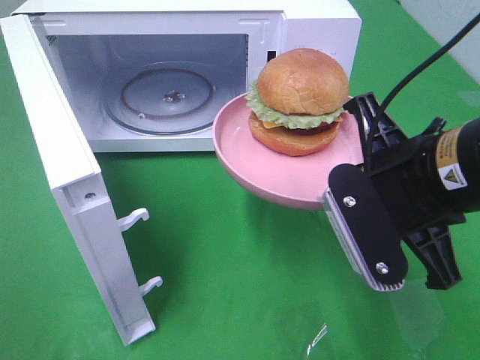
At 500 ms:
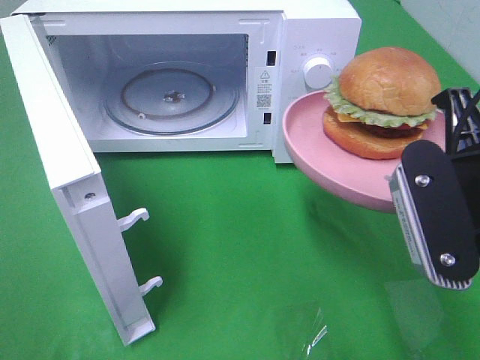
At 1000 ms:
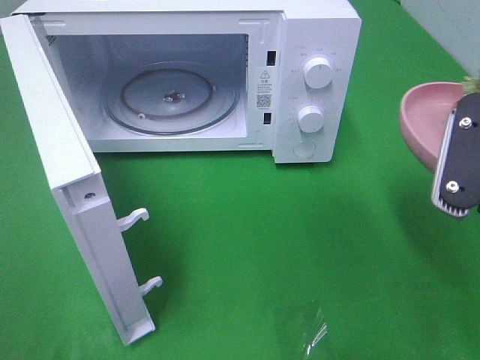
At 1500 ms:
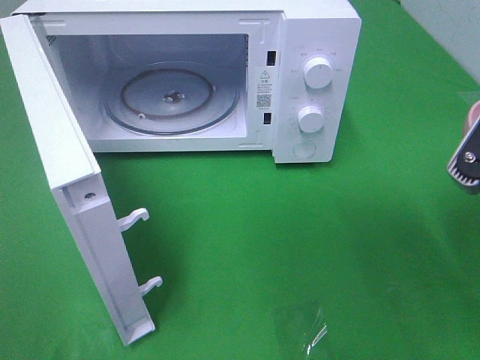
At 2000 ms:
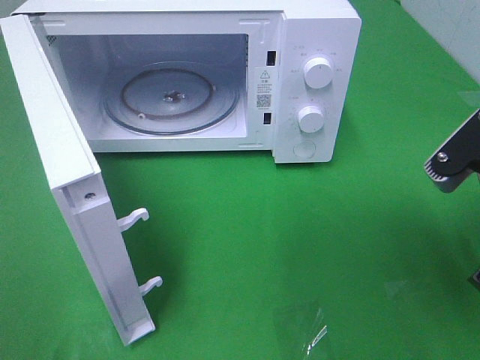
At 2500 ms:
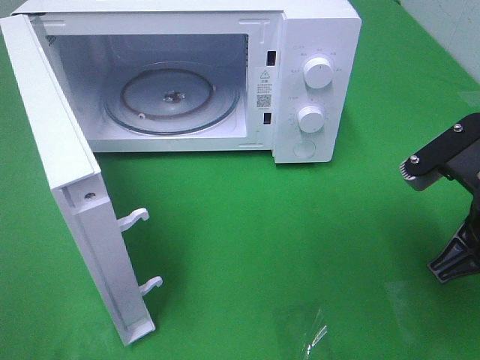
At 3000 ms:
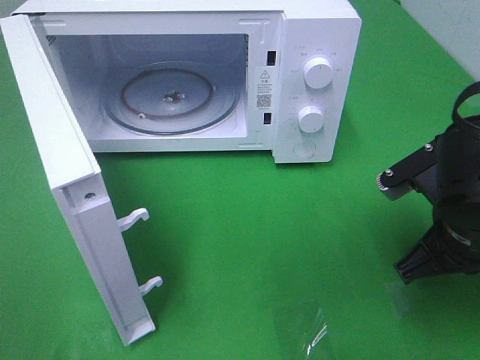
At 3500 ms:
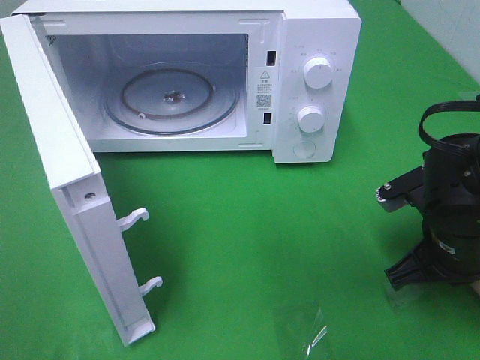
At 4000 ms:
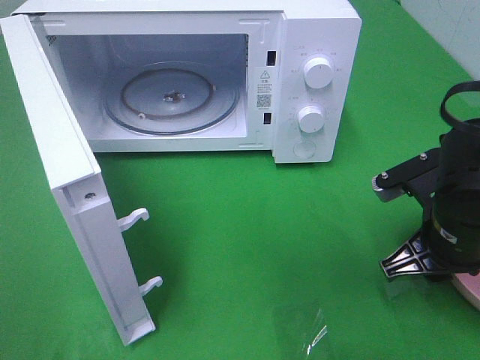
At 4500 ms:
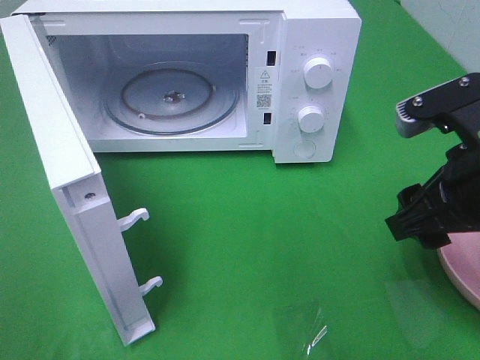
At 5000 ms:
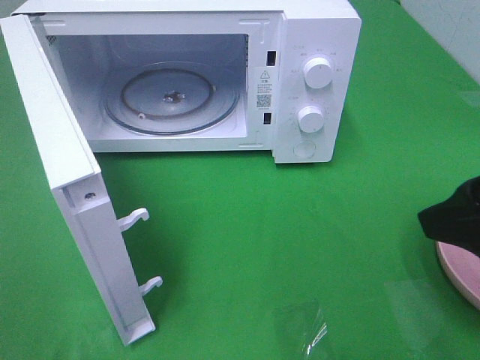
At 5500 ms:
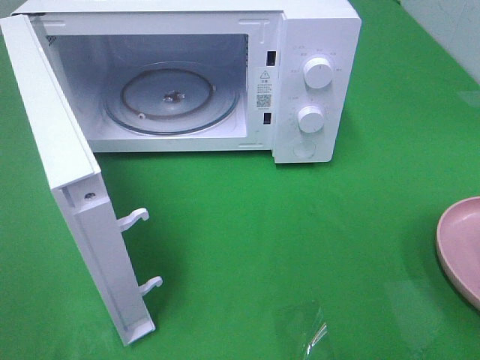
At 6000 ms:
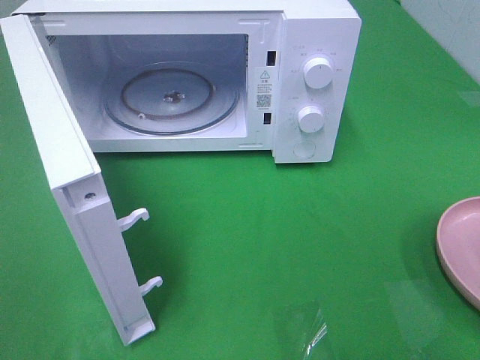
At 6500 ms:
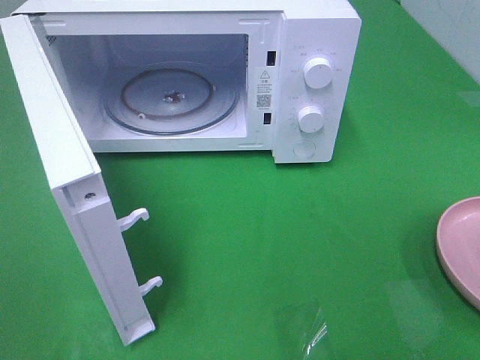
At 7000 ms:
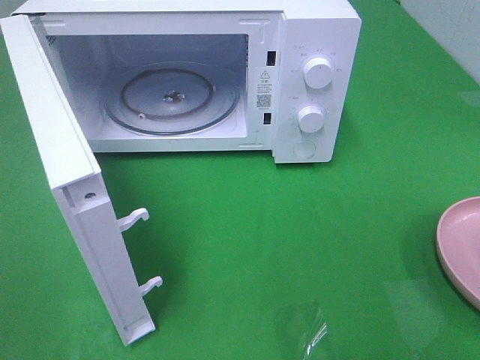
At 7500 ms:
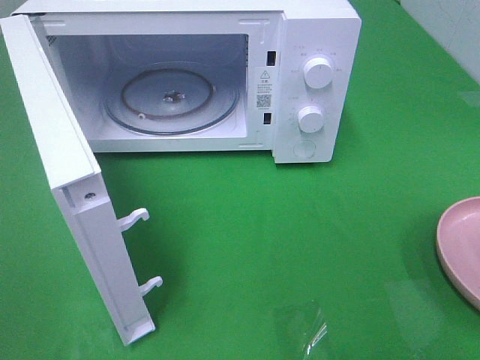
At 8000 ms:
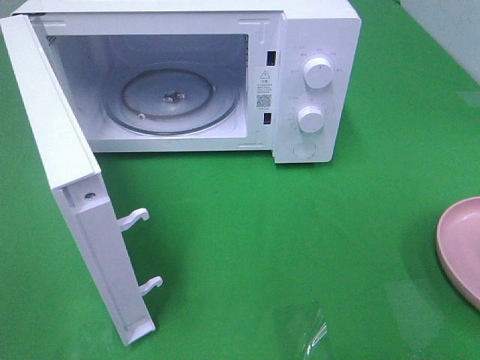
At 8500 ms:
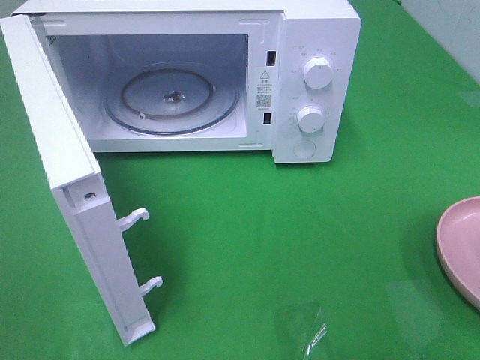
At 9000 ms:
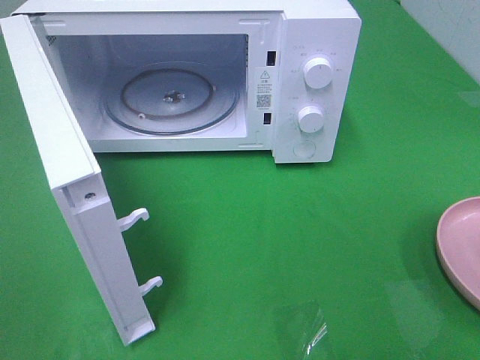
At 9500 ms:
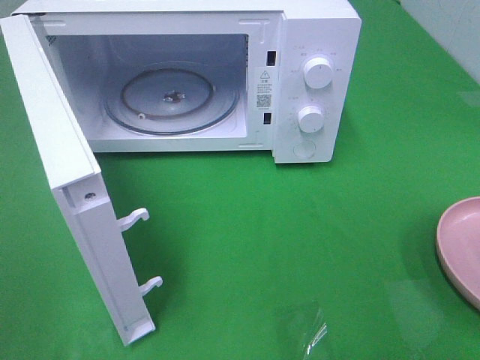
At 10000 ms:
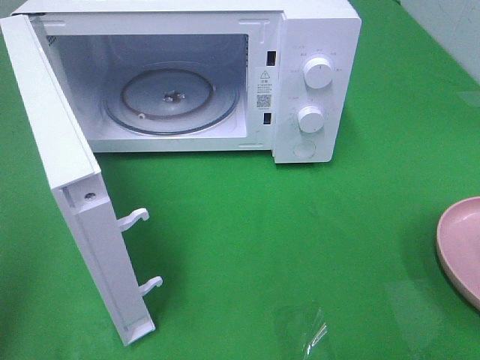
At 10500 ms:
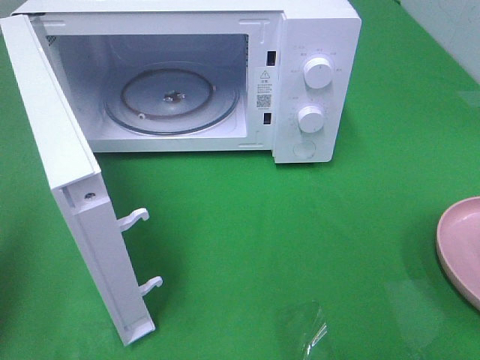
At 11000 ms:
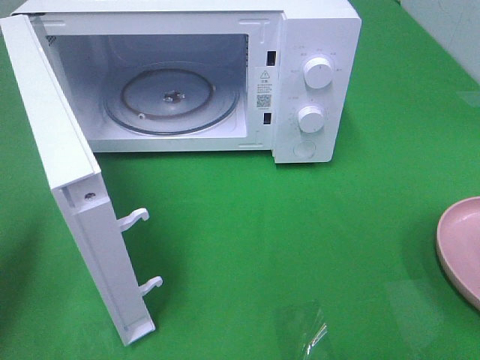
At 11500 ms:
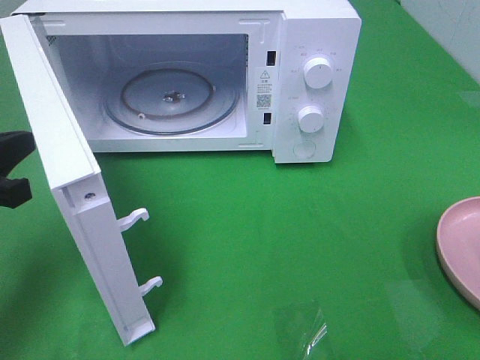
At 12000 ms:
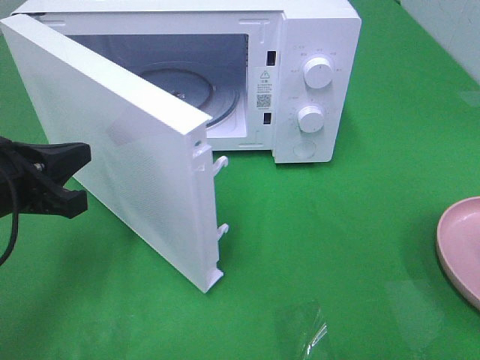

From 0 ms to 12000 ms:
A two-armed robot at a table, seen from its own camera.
Task of the whole recording: Heat the burger.
Step, from 0 ms to 3500 ms: Right hand: place the plate on the table.
From 0 ms to 2000 ms: The right gripper goes about 5 cm to the right.
From 2000 ms to 4000 ms: The right gripper goes about 10 cm downward and forward, and opens up.
From 4000 ms to 6000 ms: The right gripper travels backward, upward and to the right by approximately 25 cm.
From 10000 ms to 12000 ms: The left gripper moves downward, forward and to the right, roughly 20 cm.

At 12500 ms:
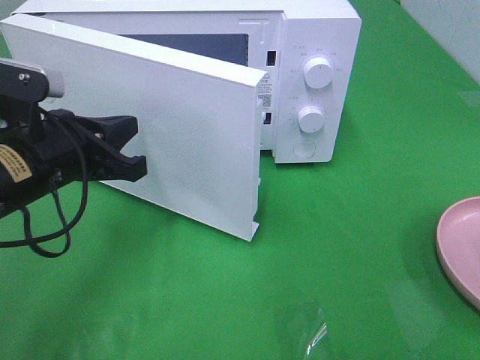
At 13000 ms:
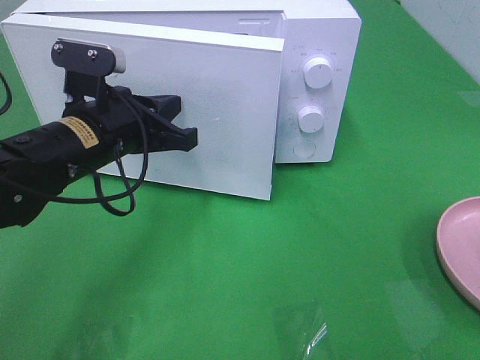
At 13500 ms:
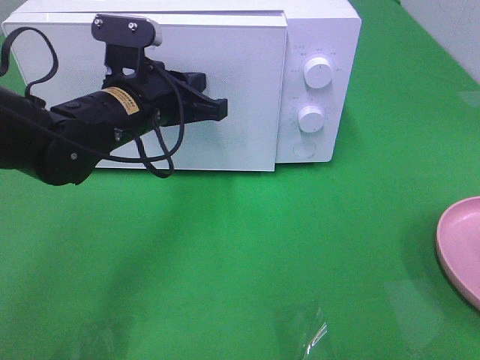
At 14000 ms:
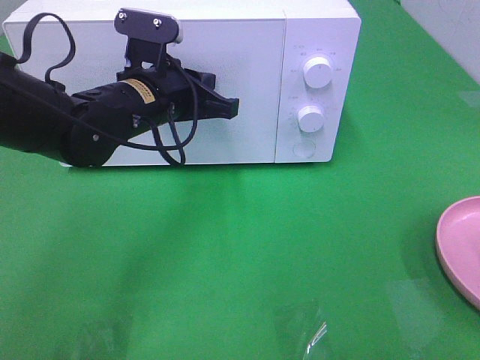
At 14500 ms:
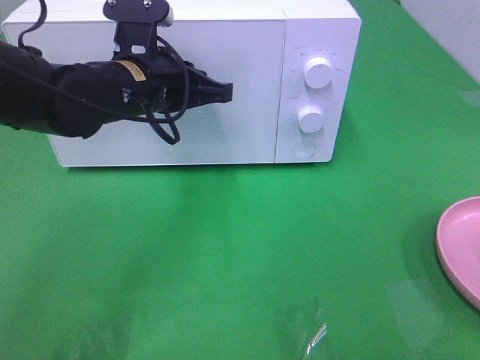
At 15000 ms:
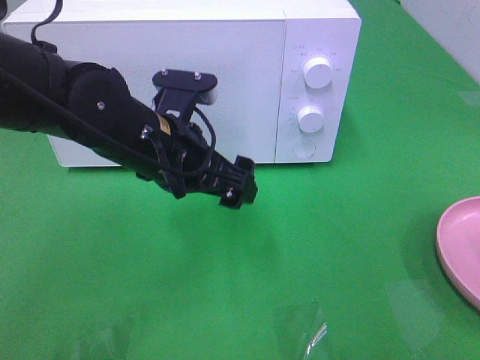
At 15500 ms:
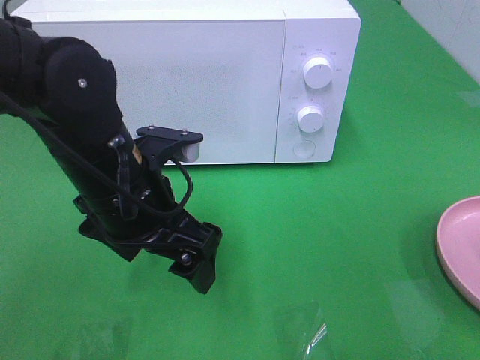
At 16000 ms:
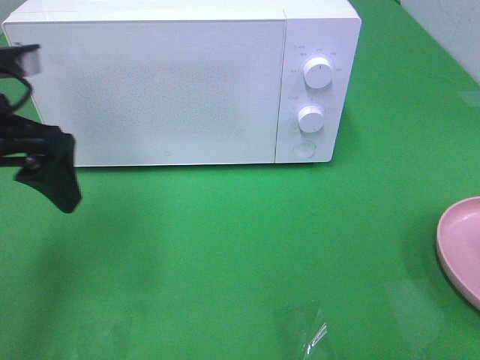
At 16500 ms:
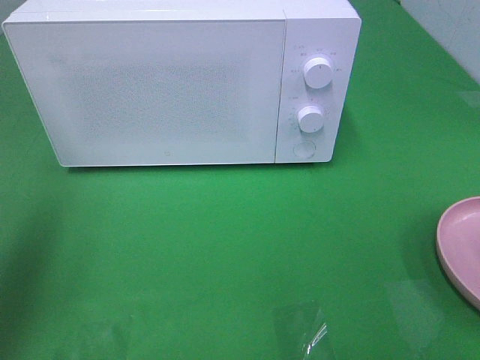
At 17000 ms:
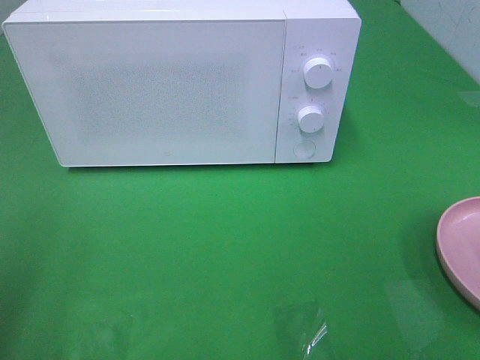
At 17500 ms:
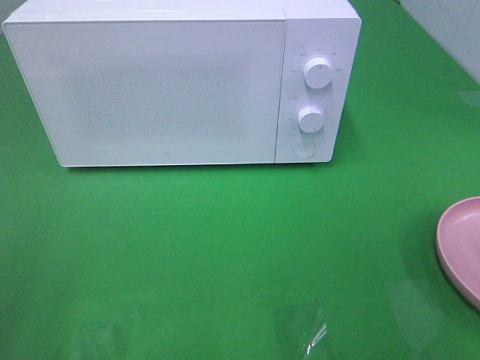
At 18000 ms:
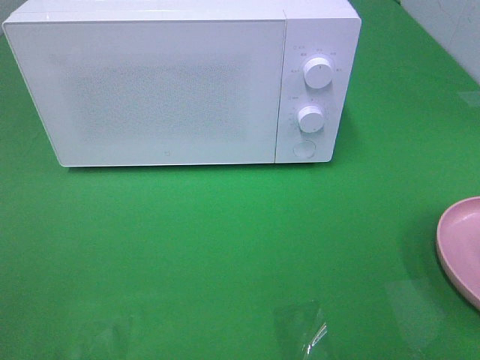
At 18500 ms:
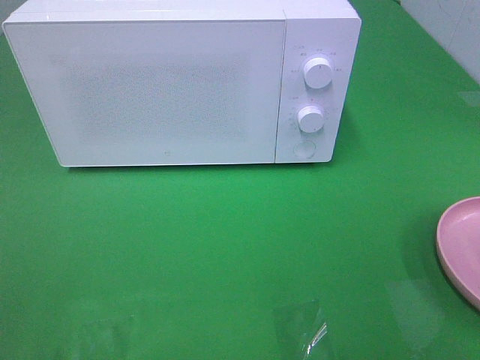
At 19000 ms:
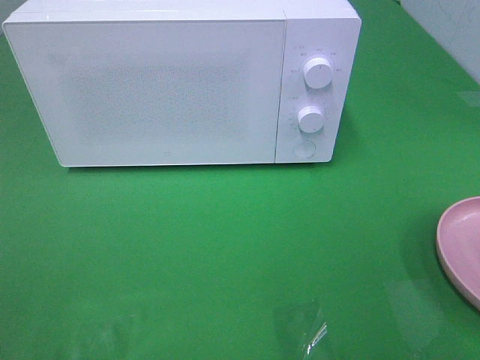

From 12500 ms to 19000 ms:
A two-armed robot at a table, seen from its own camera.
Task of the whole recording: Heat the burger.
From 12500 ms to 14500 ms: The left gripper shifts some 10 cm to the right and forward.
From 14500 ms to 17000 ms: The left gripper heads backward and to the left, covering some 35 cm, and opens its fingers.

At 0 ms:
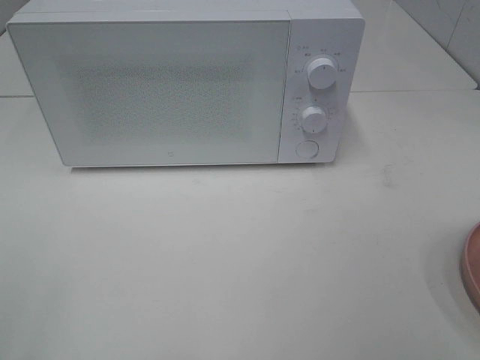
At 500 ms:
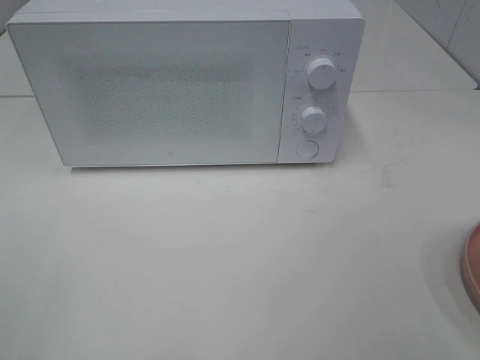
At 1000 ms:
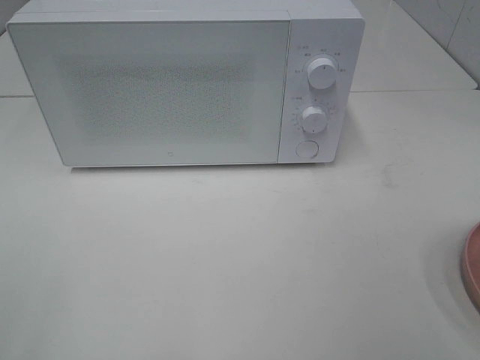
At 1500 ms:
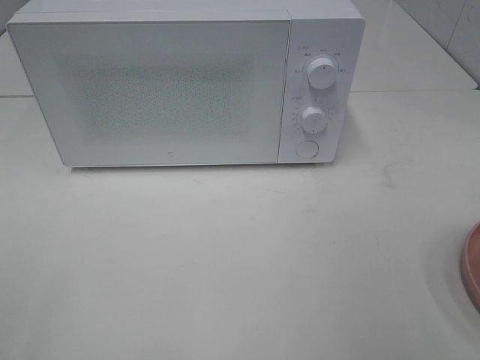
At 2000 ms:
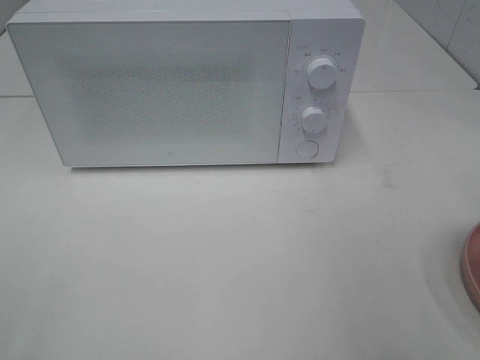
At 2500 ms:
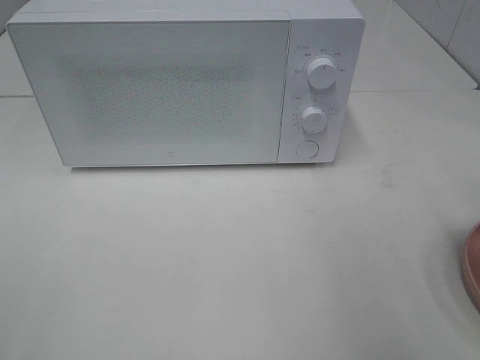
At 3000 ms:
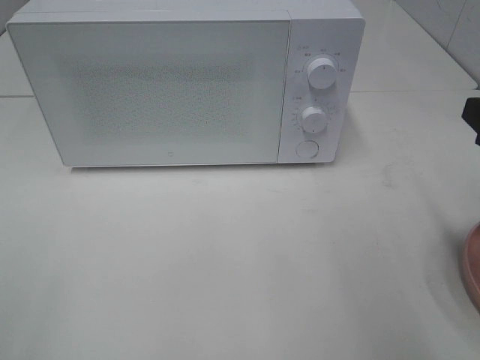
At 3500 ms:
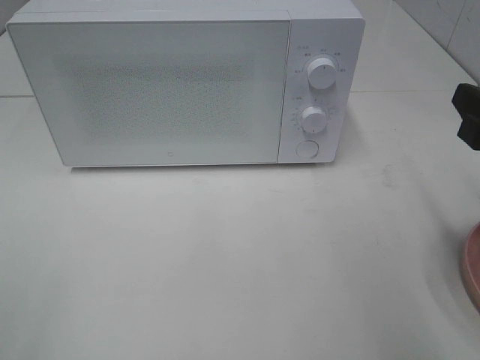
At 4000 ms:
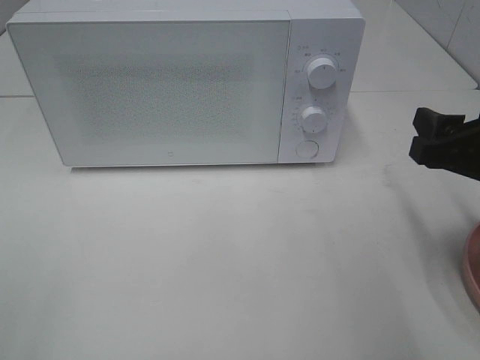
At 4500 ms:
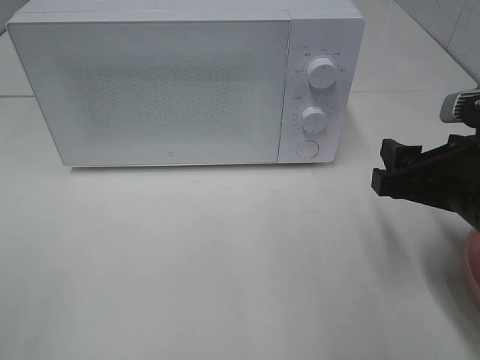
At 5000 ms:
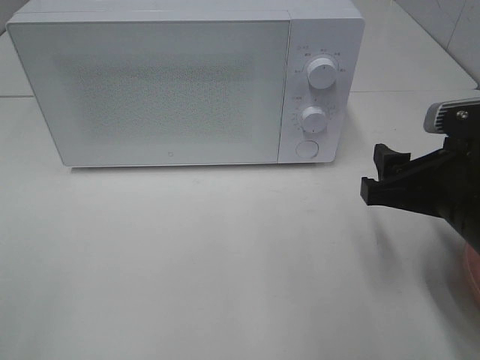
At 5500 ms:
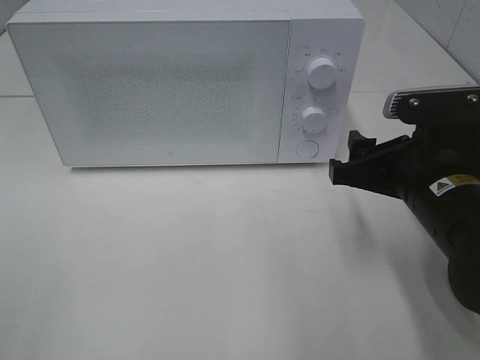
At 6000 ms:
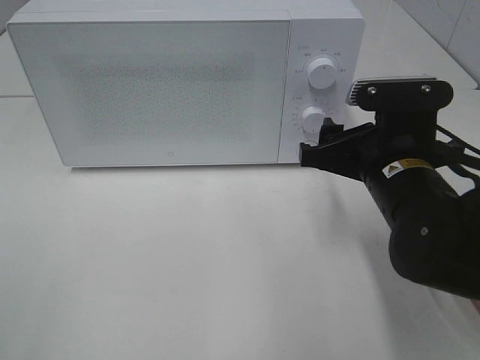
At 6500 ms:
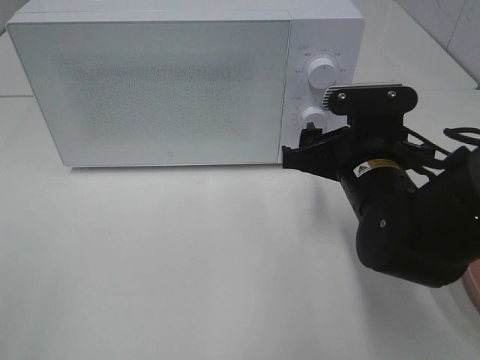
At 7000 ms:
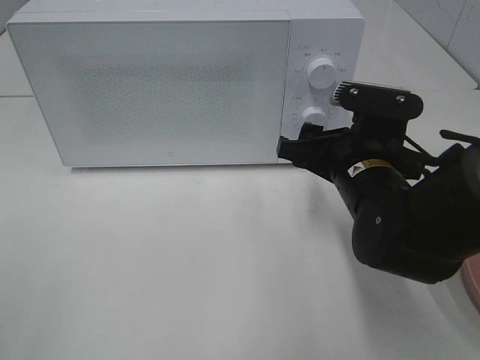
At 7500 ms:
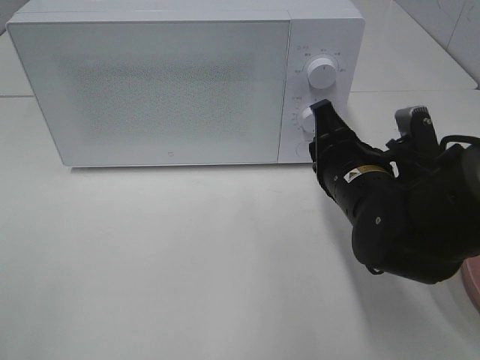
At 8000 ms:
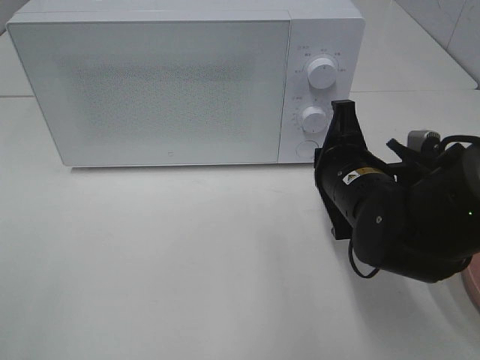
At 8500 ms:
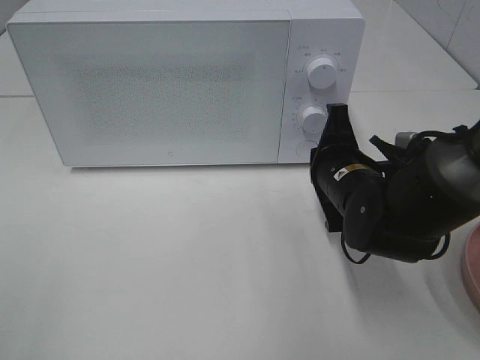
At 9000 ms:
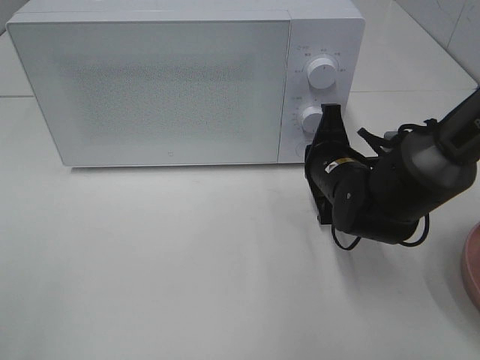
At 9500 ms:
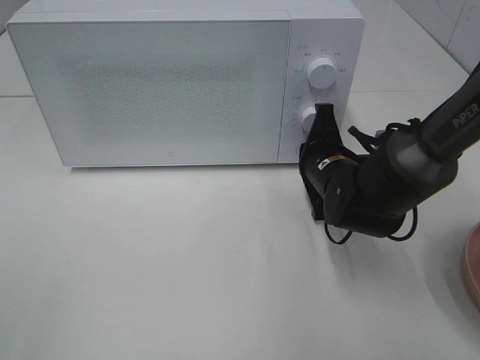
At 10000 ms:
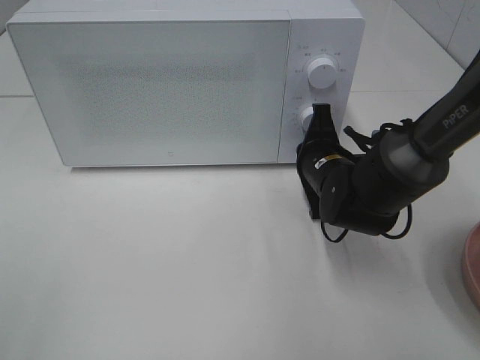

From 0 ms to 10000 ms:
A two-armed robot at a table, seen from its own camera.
Task of the whole recording: Heat the burger.
From 2000 ms to 4000 ms: The right gripper is displaced downward and forward by some 15 cm.
From 4000 ms to 6000 ms: The right gripper heads to the left, covering about 10 cm.
From 6000 ms to 8000 ms: The right gripper closes up.
From 8000 ms to 10000 ms: The right gripper heads forward, covering approximately 10 cm.
